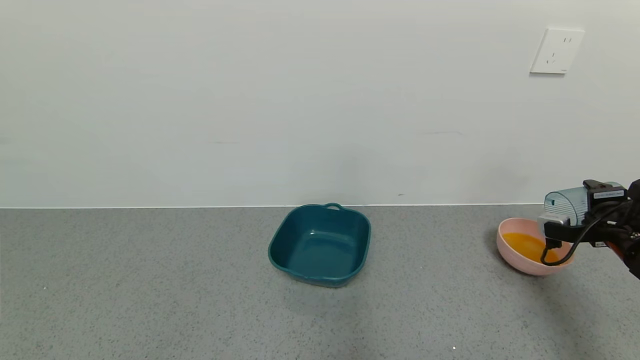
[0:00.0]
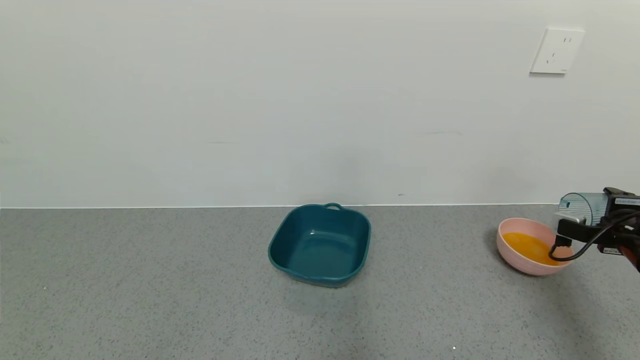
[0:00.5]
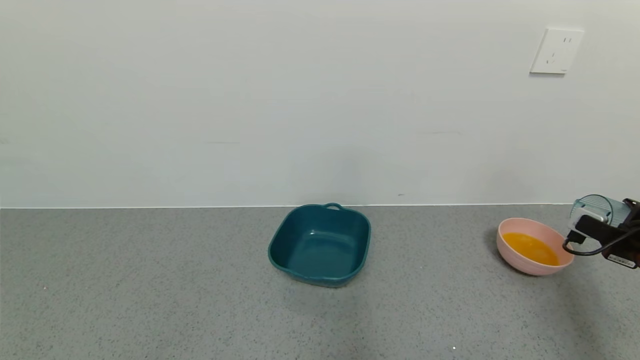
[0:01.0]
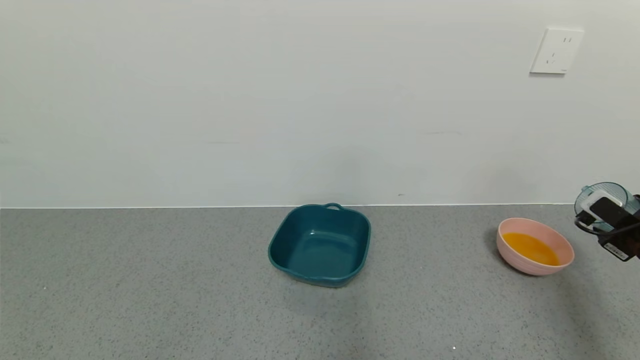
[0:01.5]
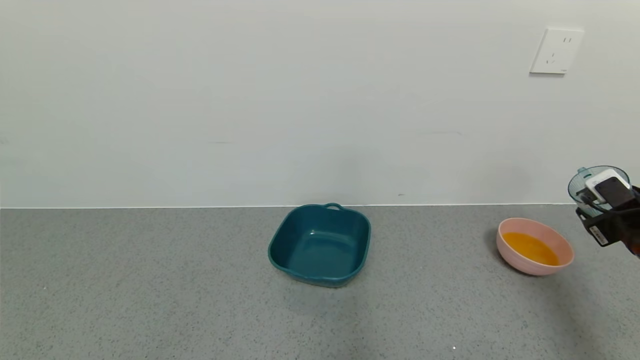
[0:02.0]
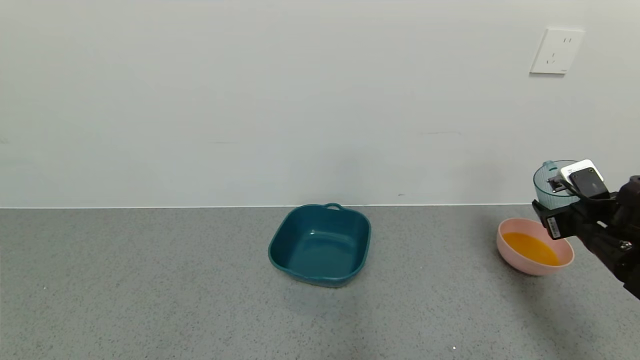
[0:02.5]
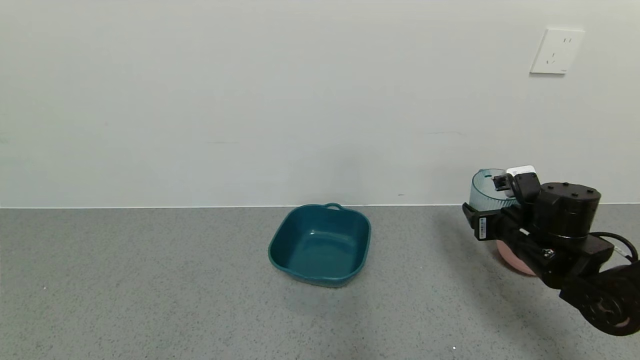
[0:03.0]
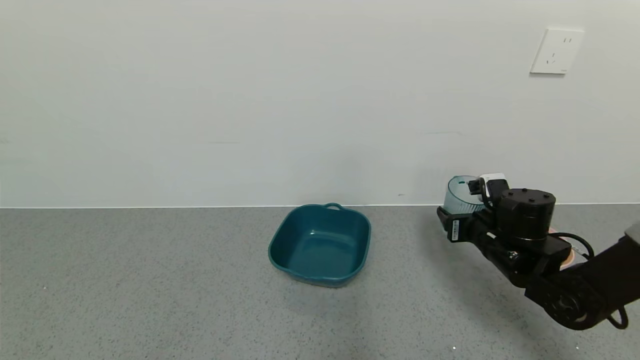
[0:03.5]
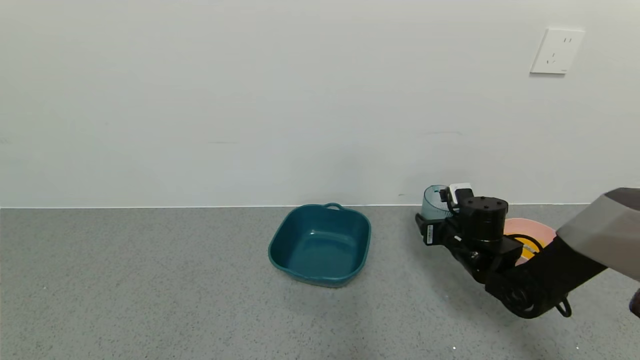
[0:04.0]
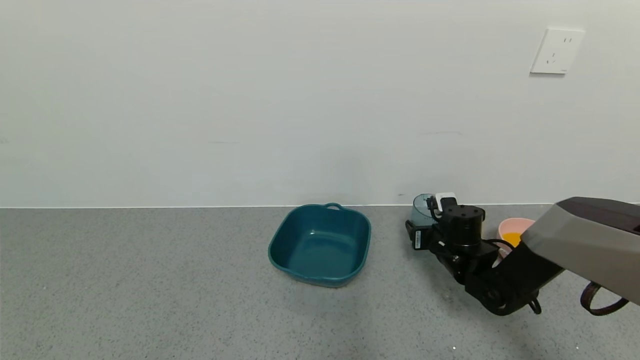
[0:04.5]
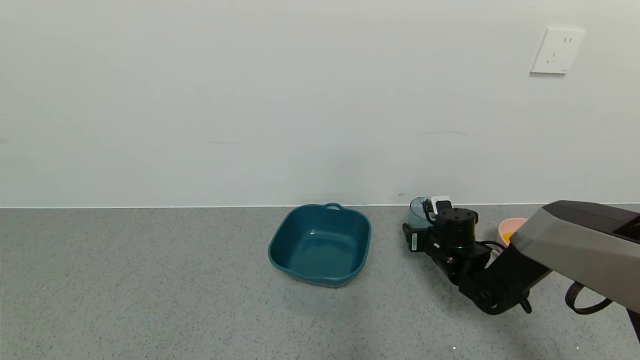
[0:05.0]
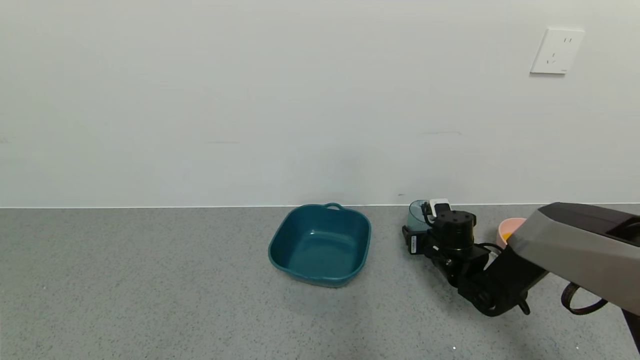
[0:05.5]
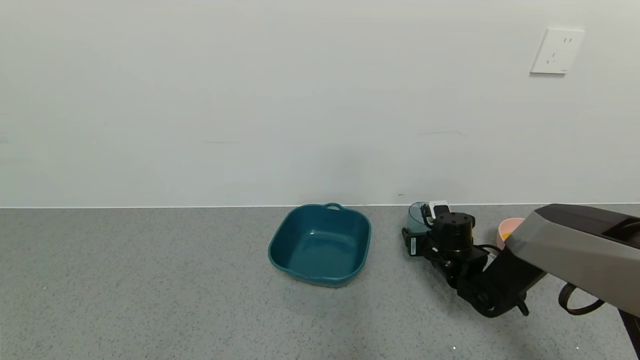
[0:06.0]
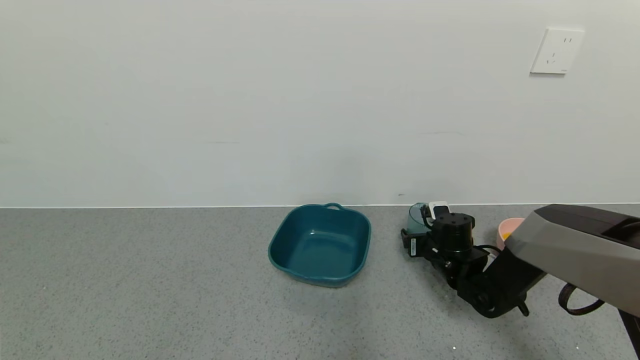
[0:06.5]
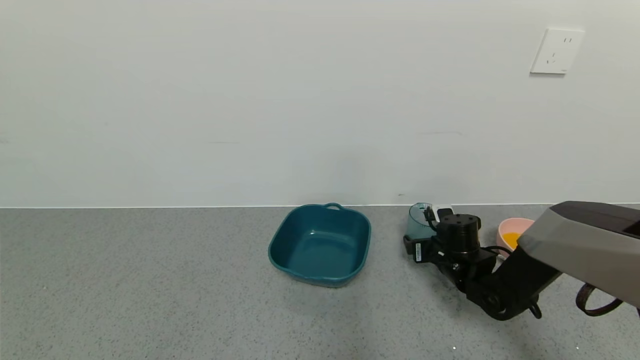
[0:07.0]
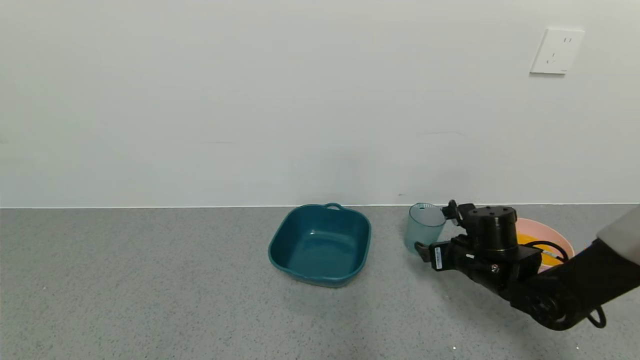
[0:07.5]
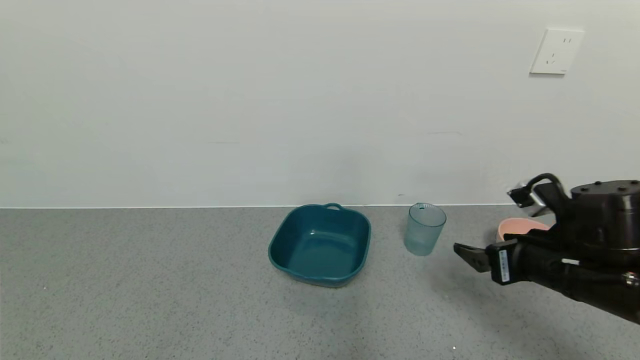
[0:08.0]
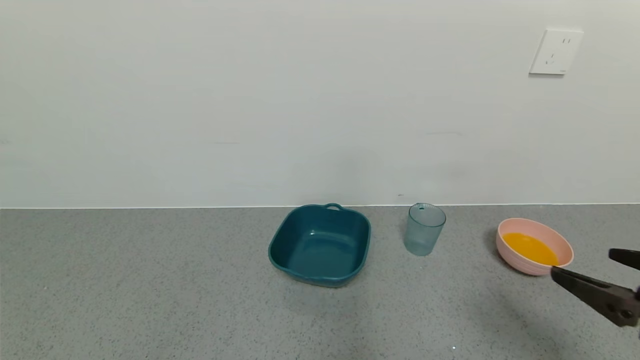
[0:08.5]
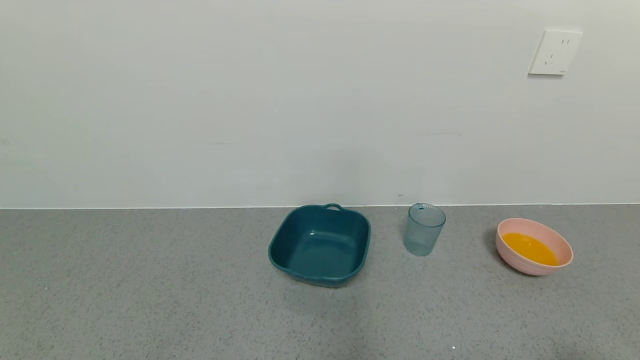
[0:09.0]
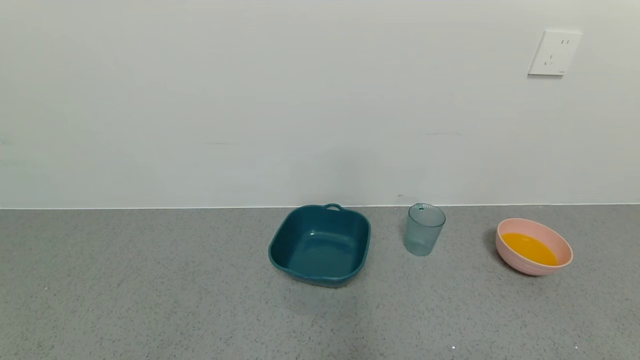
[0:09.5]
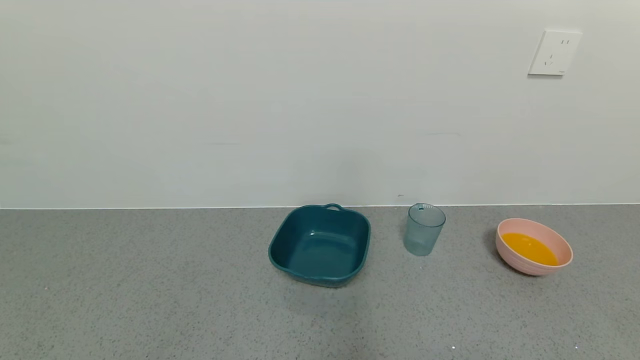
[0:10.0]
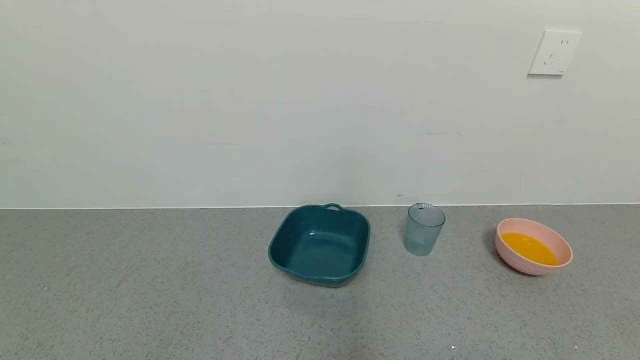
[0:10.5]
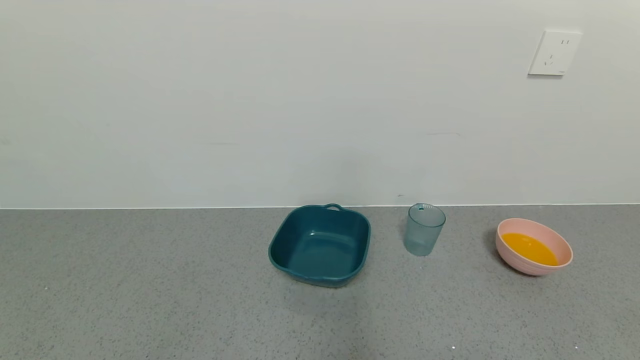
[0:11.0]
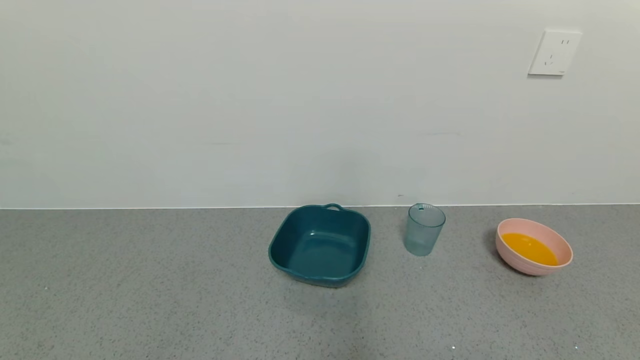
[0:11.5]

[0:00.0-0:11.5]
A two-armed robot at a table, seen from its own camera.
Task of the whole recording: use a gripper to pick up the cup and pour the liquid into a bowl or tray.
Step, 0:00.0 to 0:06.0: Place blue cup with orange juice on the table with right gripper.
0:02.0 to 0:04.0: The right gripper goes some 20 cm to the left.
0:04.0 to 0:06.0: The right gripper shifts about 5 cm downward.
0:06.0 to 0:07.5: The right gripper heads backward and upward, covering approximately 10 cm, and opens up.
0:07.5 to 0:09.5: The right gripper moves backward, approximately 40 cm.
